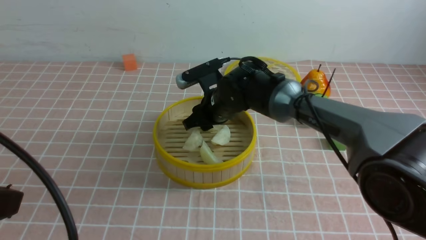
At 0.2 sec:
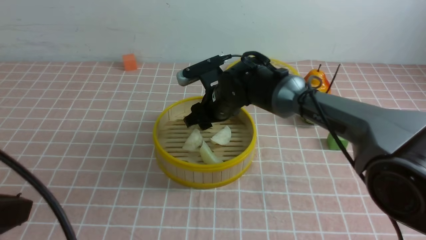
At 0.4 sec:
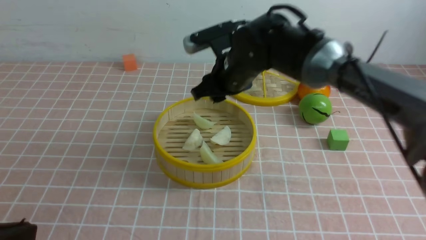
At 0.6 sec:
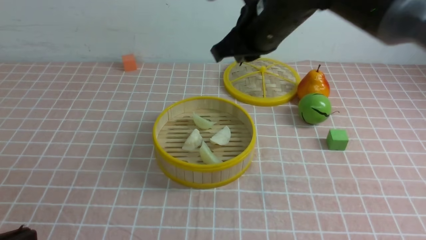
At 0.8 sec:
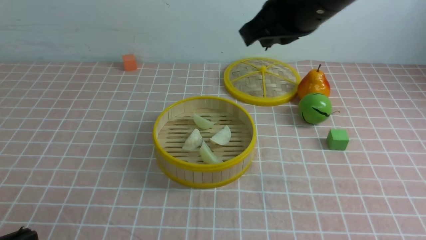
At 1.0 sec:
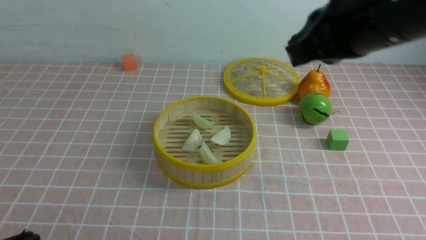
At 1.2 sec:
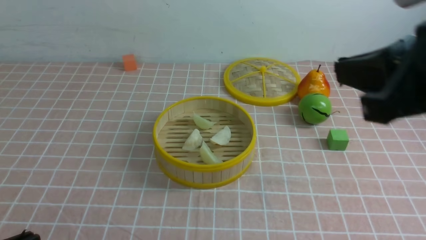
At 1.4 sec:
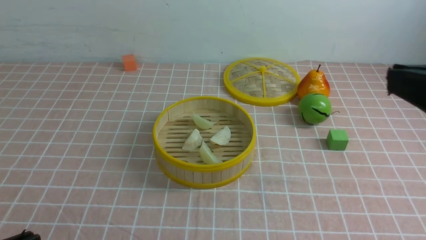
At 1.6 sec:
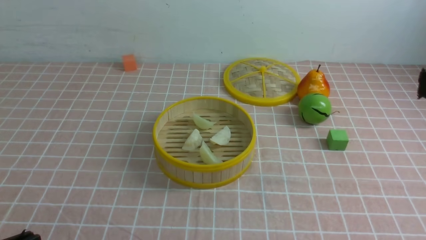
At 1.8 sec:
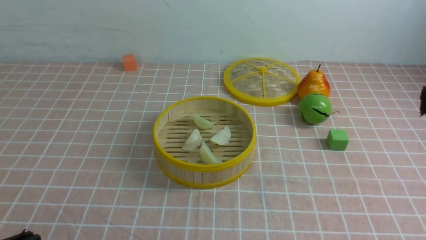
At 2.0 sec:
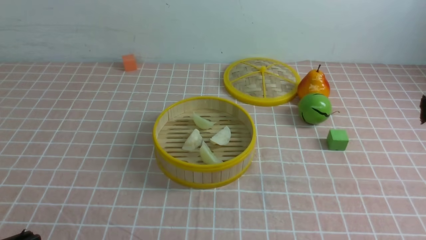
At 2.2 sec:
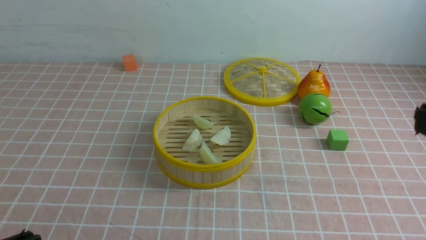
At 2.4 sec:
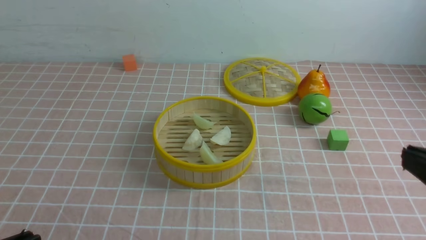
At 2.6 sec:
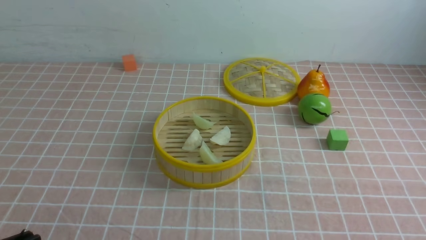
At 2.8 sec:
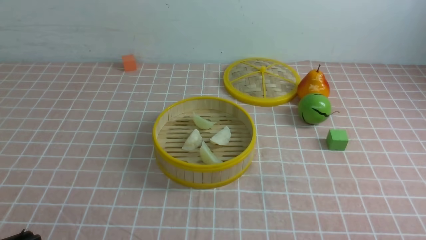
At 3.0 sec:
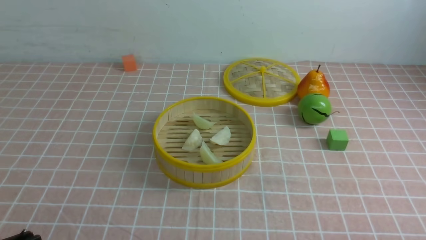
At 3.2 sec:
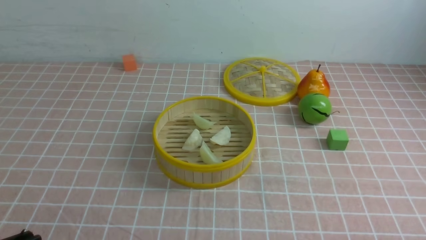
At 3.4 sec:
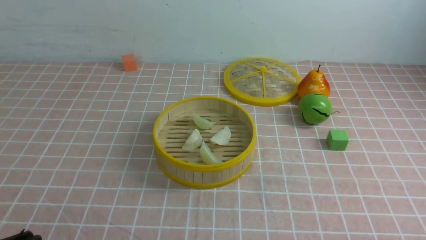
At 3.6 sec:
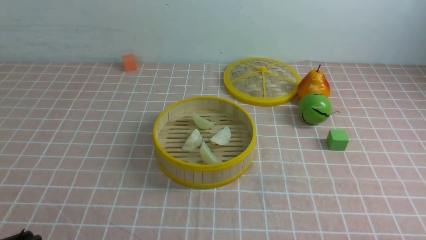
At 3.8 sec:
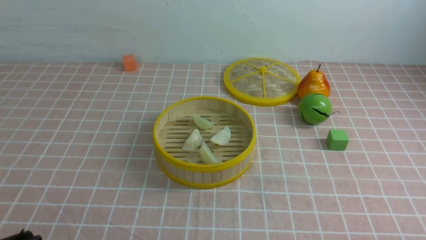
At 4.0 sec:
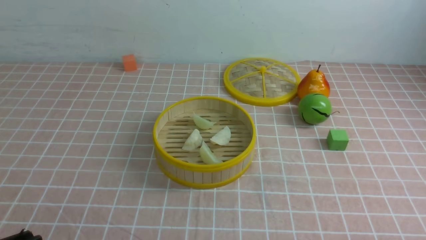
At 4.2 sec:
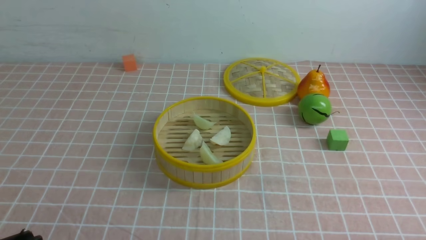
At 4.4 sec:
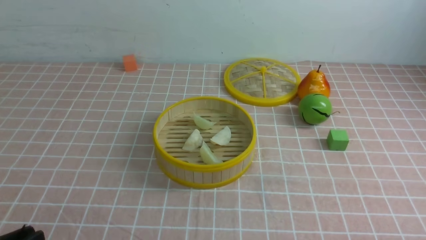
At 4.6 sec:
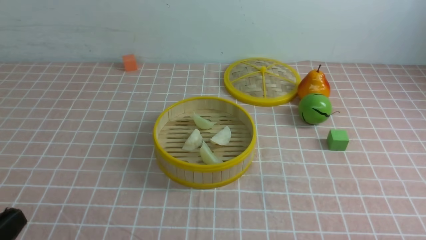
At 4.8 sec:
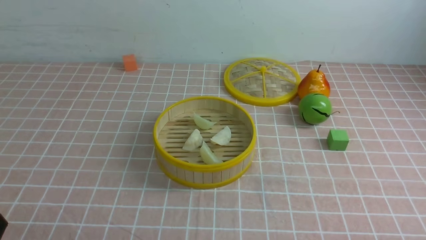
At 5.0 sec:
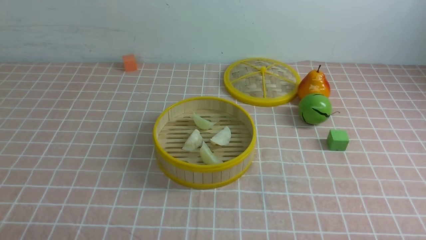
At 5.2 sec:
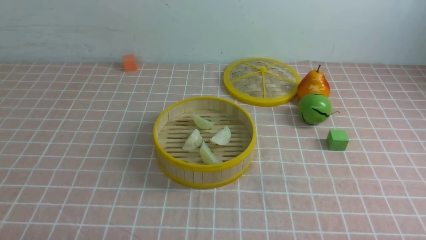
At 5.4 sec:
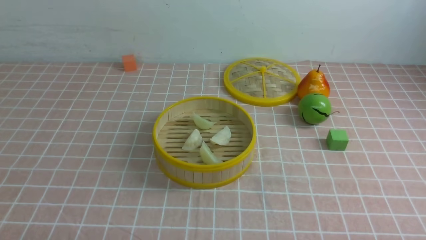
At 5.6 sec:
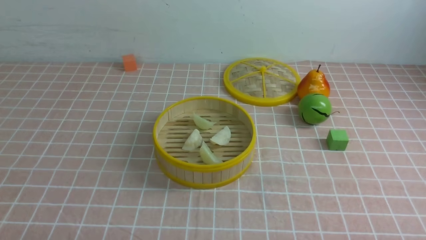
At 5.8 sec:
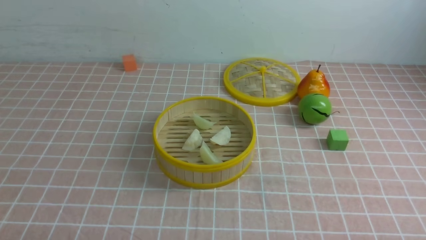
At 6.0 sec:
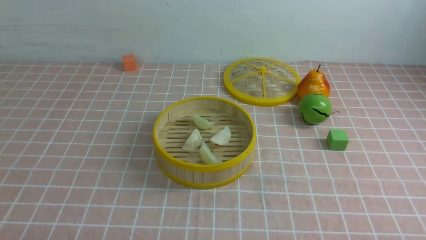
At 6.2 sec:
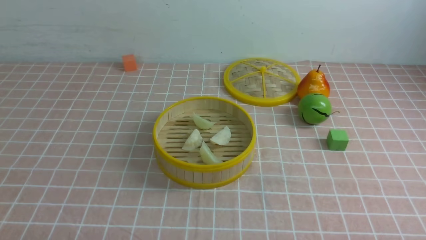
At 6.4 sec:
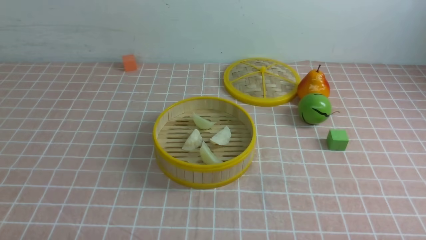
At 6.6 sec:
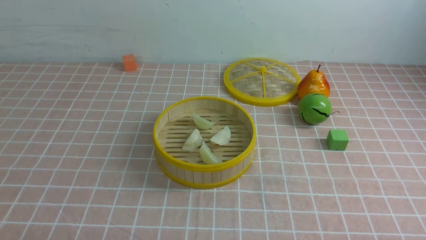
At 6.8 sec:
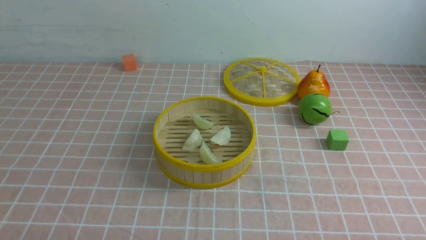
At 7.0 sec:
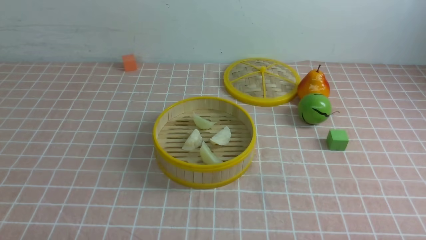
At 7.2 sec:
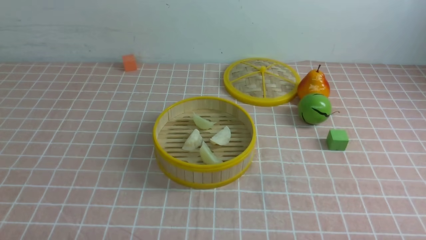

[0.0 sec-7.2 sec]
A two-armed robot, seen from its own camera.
Task of the whole recording: put the dumplings into the steamer on the table with the pink tablecloth.
0.0 sec to 1.4 sec: The right gripper is displaced backward, to the right and upward by roughly 40 cm, and closes its fingers. The left gripper heads downward, covering about 10 cm.
1.4 sec to 2.8 sec: The right gripper shifts approximately 20 cm downward and to the right.
5.8 sec to 7.2 sec: The two grippers keep their place.
